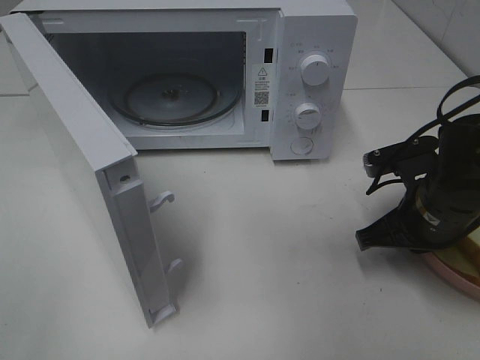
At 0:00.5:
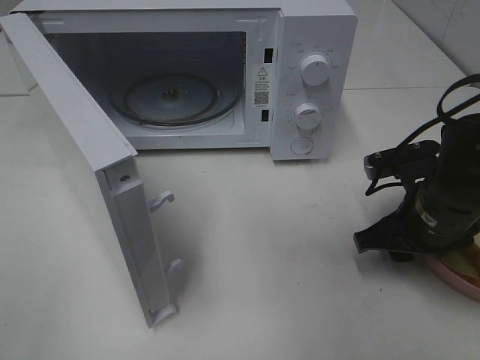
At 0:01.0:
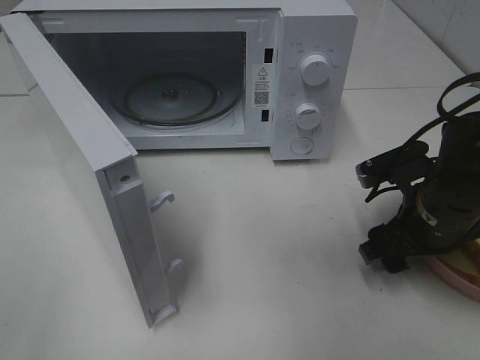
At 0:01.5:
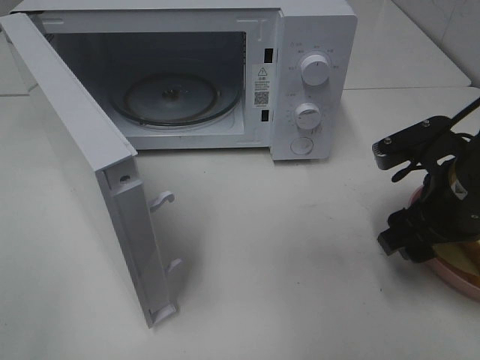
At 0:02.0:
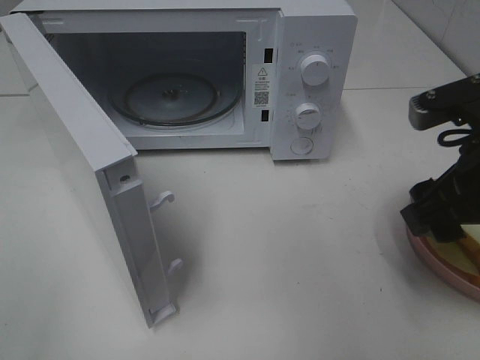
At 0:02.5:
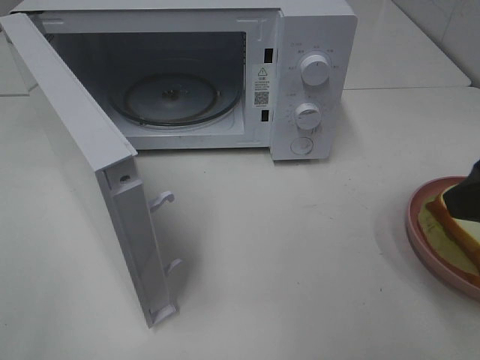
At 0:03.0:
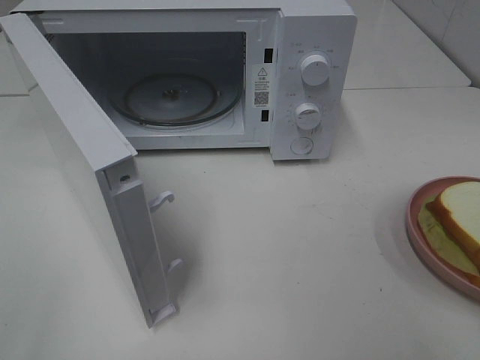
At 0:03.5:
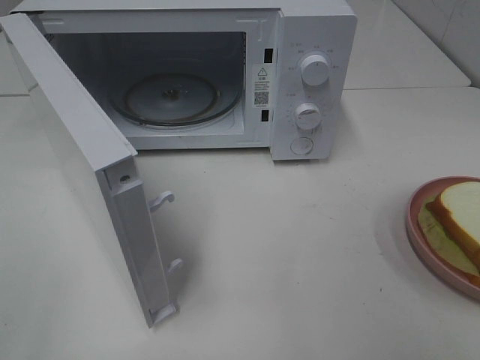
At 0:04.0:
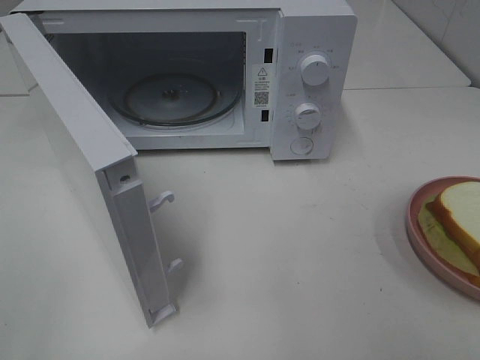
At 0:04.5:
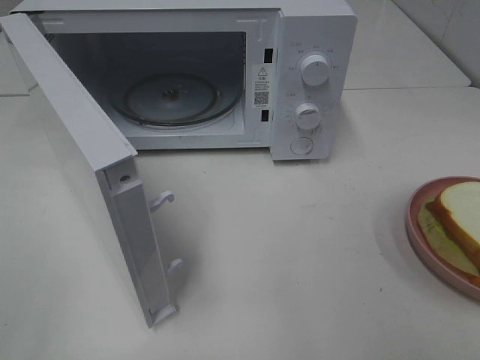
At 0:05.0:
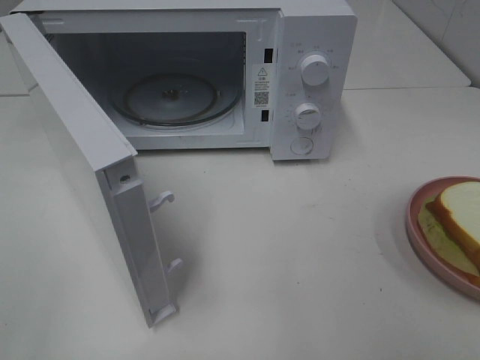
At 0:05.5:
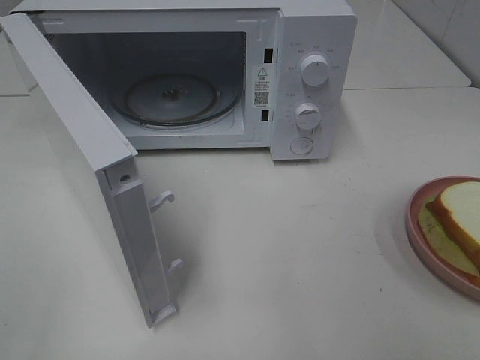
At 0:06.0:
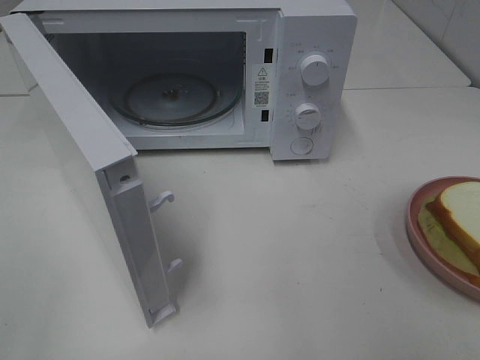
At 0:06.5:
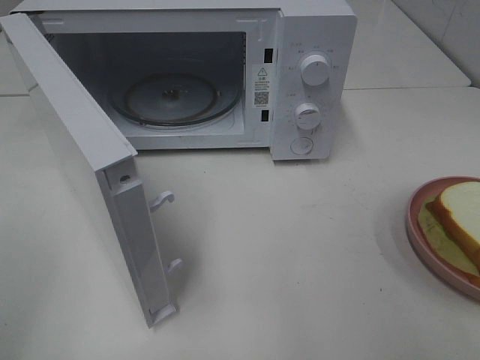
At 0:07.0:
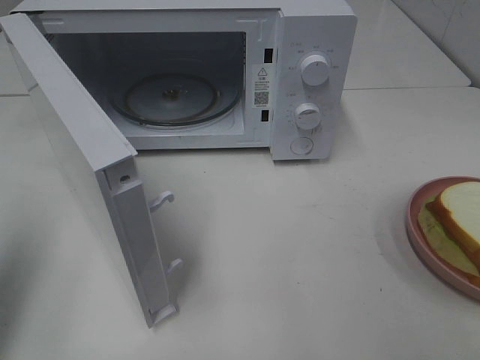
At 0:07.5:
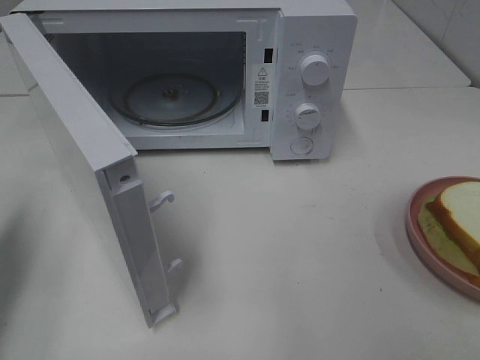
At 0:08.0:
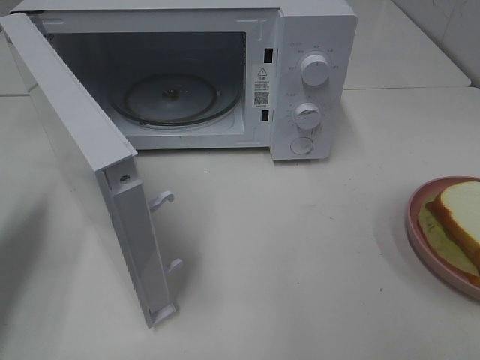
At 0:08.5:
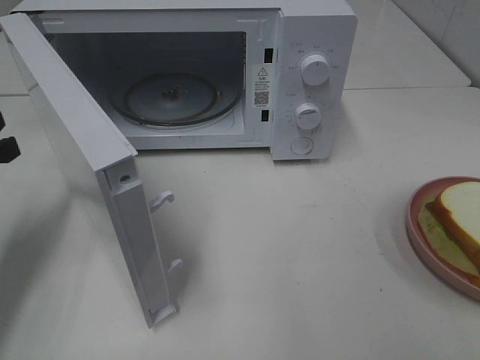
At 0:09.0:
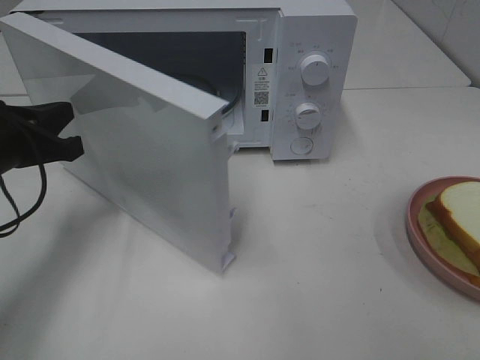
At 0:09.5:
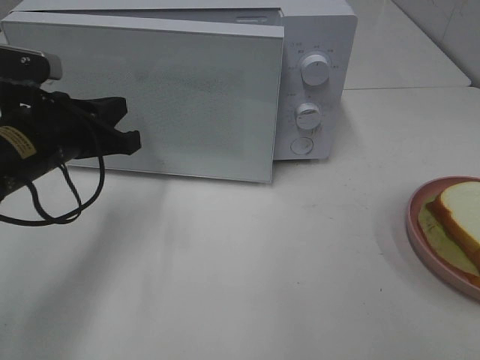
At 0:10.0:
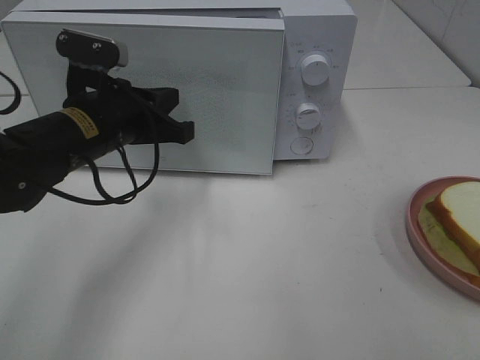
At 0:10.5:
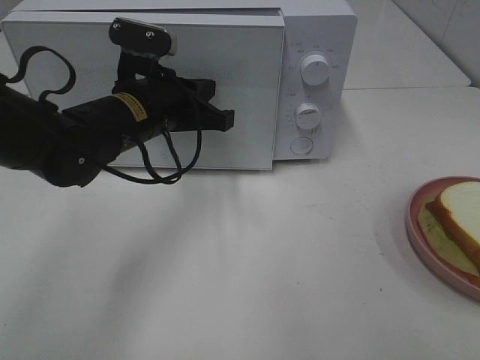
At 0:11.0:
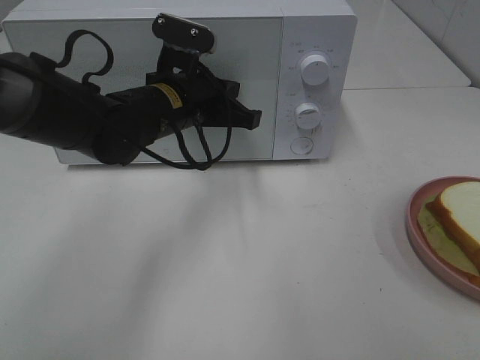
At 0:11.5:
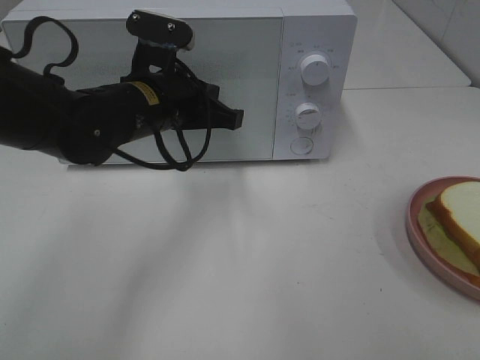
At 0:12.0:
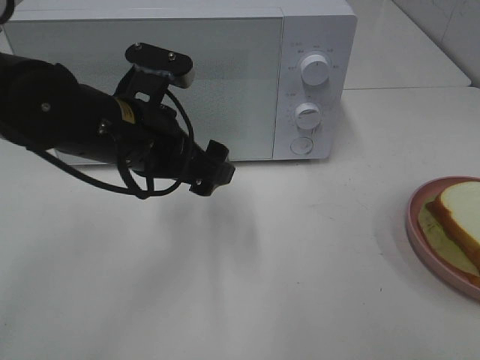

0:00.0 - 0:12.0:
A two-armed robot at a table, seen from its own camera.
Task of the whole recording: Heat Sandwich.
0:00.0 - 0:02.0: The right gripper is displaced upward and backward by about 15 cm, and opens up.
0:02.0 - 0:04.0: The right gripper heads backward, covering roughly 20 cm.
0:04.0 - 0:06.0: The two grippers keep their place.
0:06.0 - 0:08.0: The left gripper travels forward by some 25 cm, and closes its fingers.
0:08.0 - 0:10.0: The left gripper shifts about 20 cm to the right.
0:10.0 - 0:12.0: The left gripper changes place by about 5 cm, and opens.

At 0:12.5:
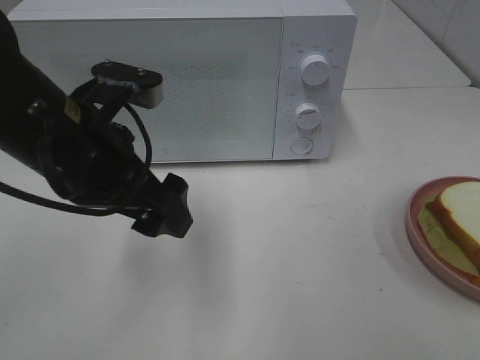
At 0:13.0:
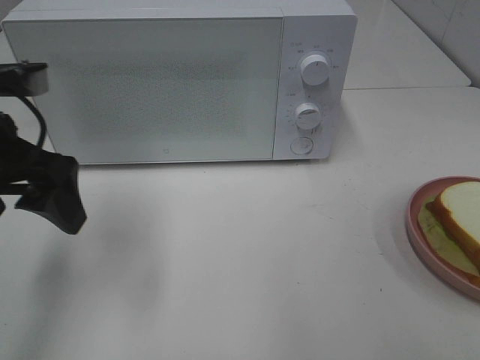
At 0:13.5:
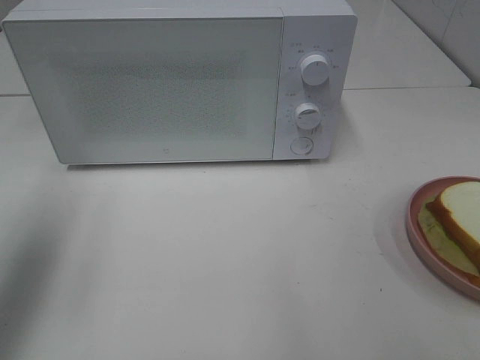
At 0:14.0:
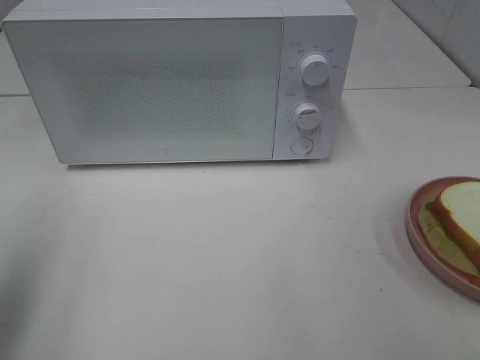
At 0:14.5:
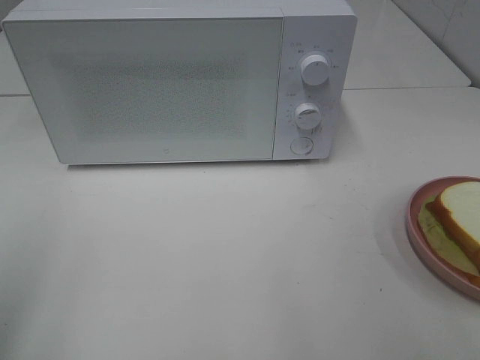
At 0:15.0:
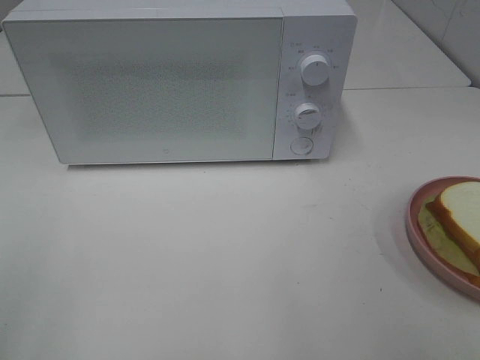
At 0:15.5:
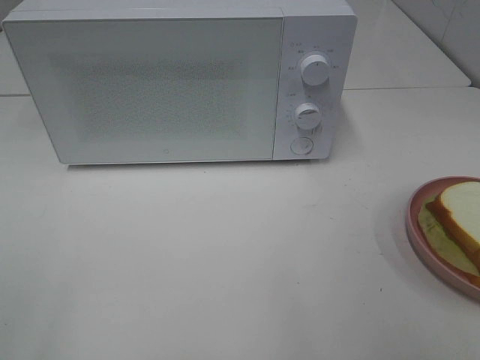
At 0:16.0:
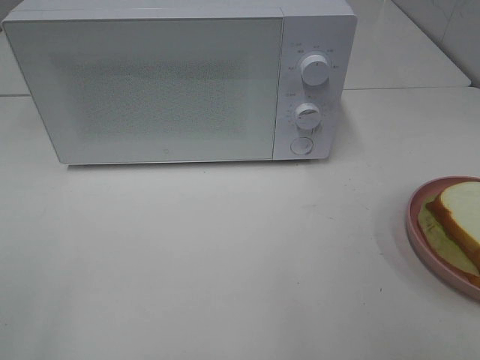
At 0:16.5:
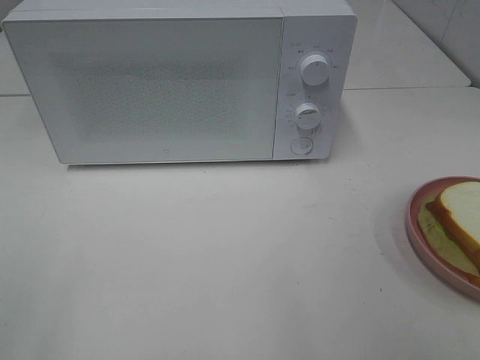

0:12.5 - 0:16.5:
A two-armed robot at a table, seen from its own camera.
Task of the whole recording: Heat Sandwich.
0:12.5 - 0:14.5: The left gripper shifts approximately 25 cm to the left, backward and upward.
